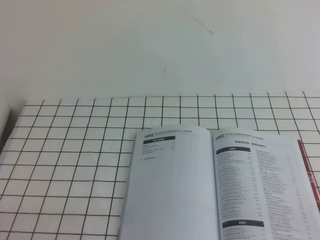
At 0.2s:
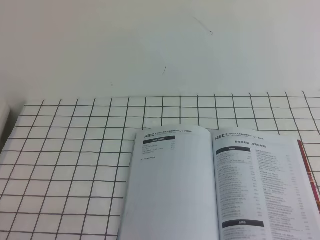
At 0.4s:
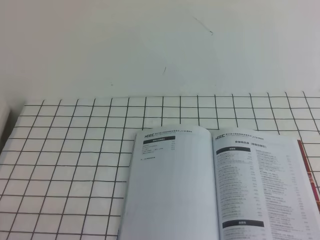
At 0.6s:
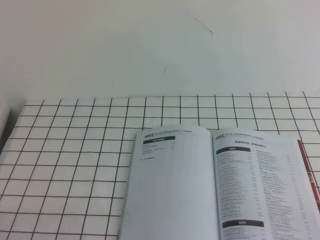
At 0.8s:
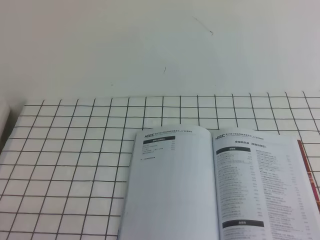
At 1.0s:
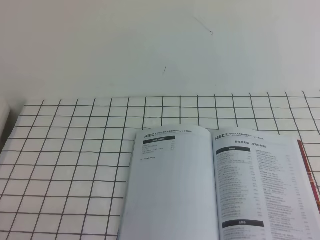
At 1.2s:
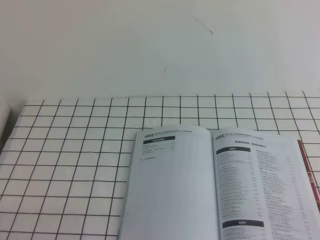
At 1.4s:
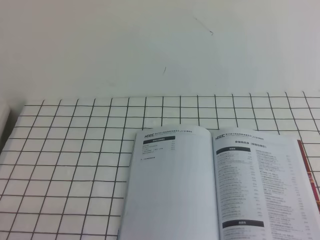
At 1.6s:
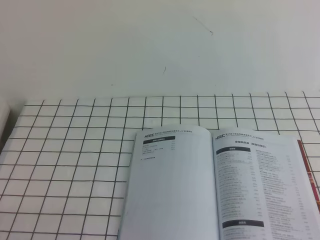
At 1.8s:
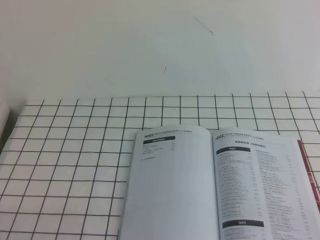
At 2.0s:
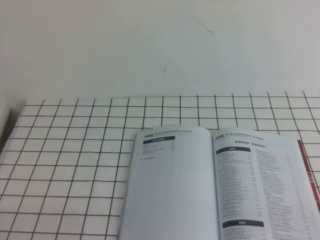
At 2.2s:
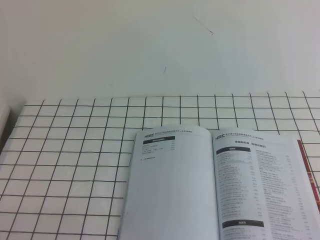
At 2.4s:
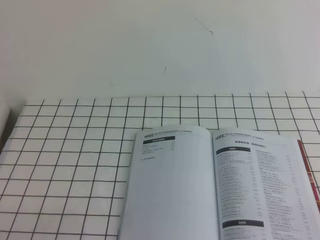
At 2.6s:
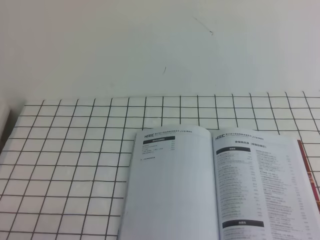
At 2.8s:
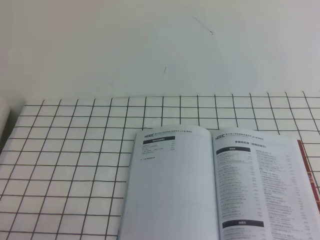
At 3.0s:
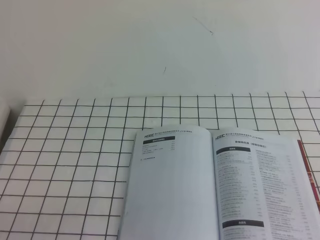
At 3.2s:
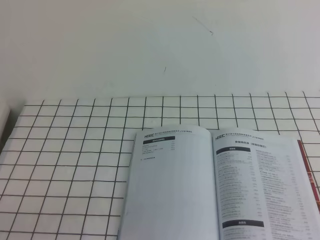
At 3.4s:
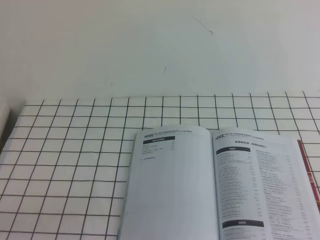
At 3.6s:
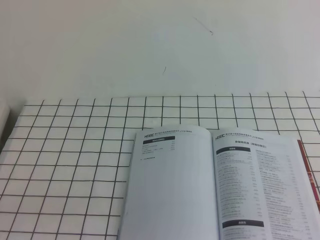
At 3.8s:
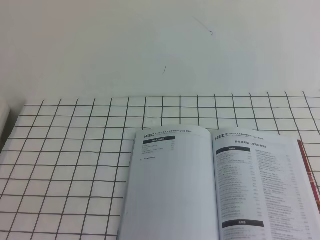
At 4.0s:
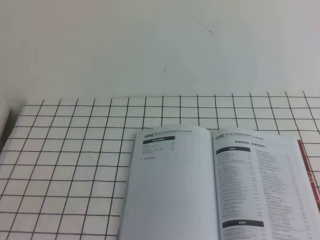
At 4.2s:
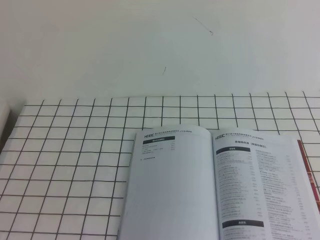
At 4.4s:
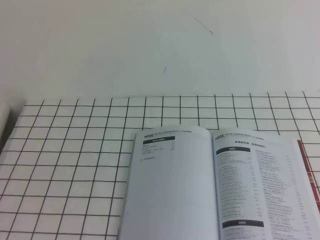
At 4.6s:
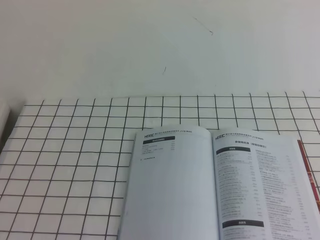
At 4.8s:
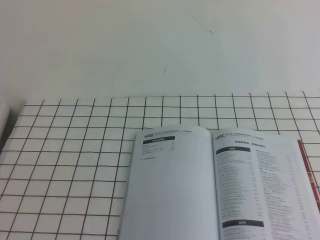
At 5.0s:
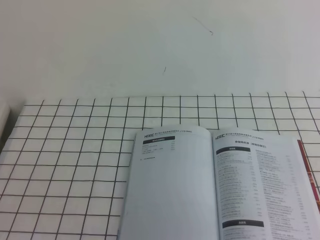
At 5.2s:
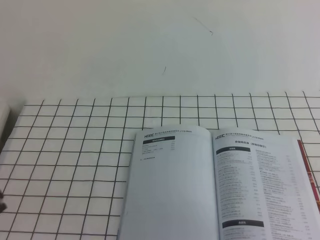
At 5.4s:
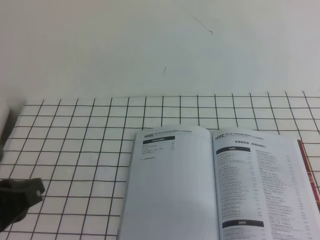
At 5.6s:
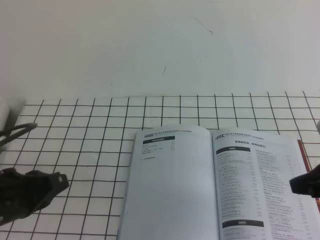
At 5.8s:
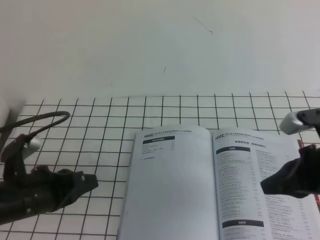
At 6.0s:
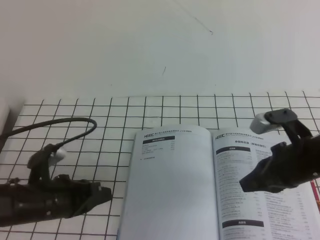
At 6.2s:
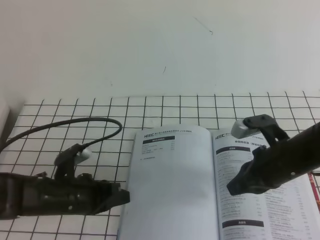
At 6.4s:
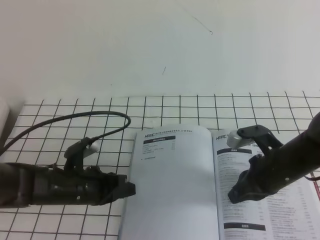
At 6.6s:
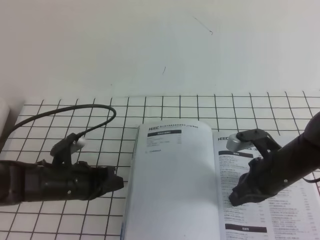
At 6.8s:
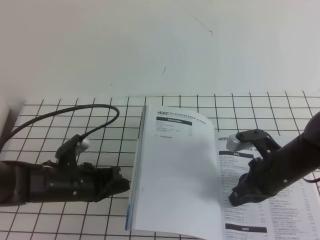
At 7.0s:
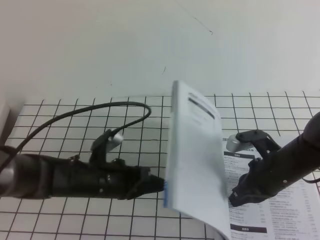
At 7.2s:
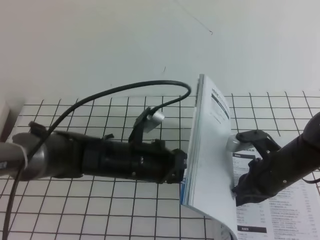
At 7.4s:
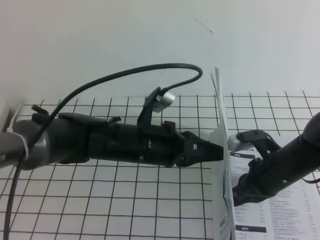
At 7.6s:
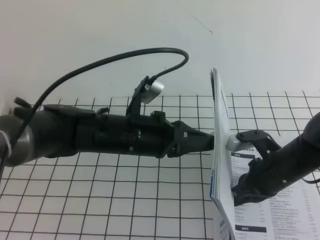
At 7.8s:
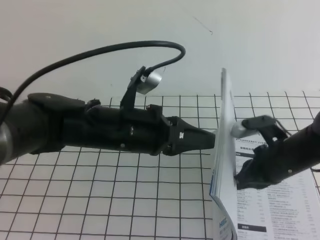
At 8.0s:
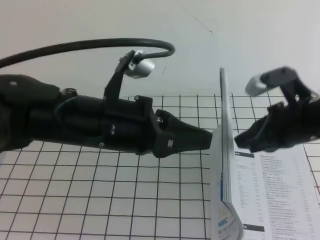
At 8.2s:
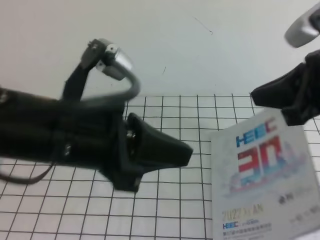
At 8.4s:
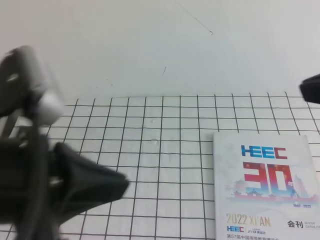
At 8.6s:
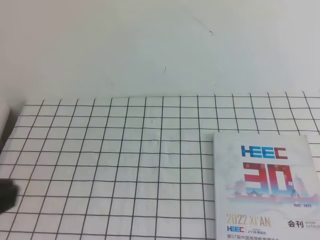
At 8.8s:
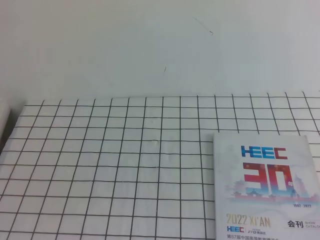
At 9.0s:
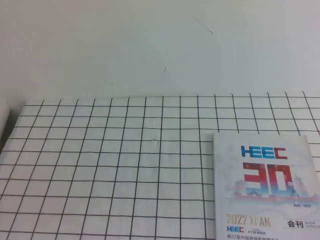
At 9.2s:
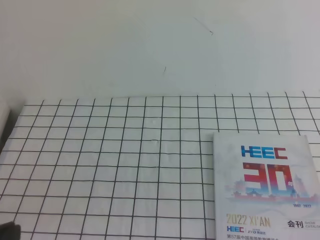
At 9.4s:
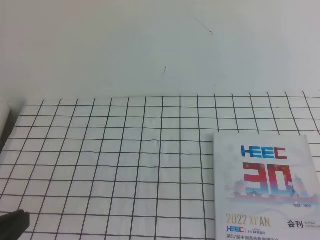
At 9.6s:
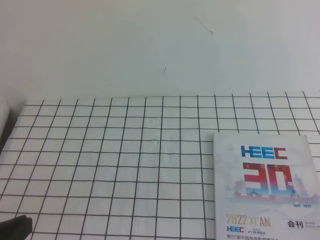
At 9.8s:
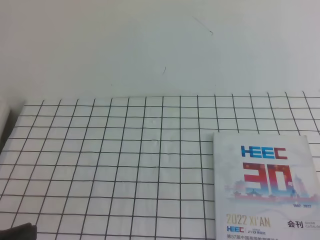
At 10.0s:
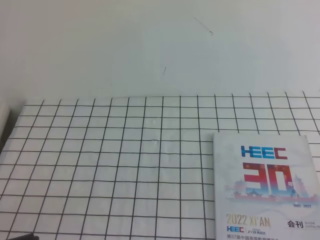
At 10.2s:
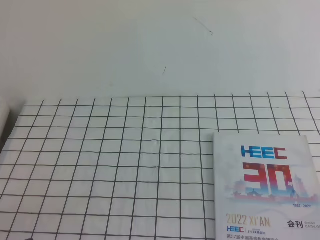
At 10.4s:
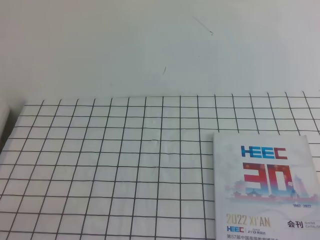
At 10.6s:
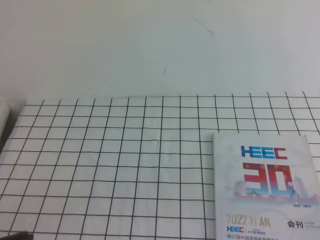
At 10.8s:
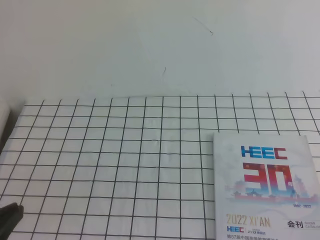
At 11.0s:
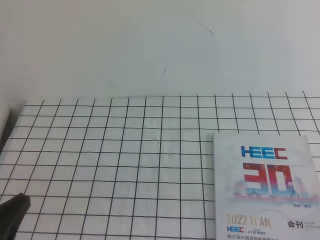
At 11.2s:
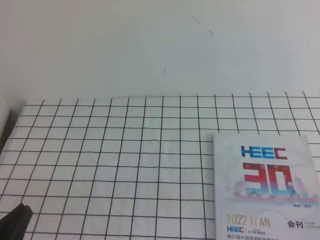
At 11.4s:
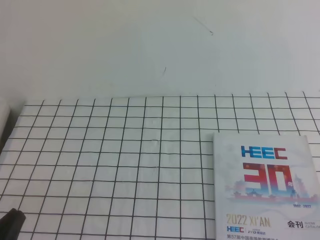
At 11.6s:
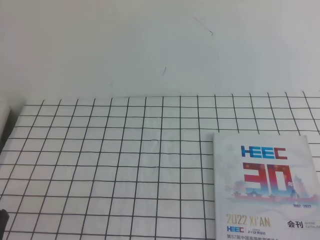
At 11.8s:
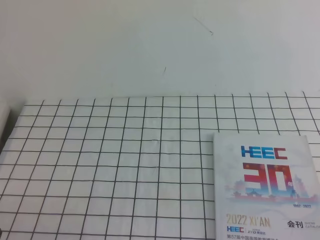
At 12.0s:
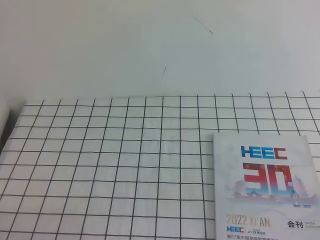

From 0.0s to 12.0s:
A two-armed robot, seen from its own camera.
Task of the whole recording: on the white tablecloth, hold the book with one hand and close it with the other.
From 0.0s to 1.6s: Neither gripper changes place.
From 4.4s to 6.0s: The right gripper heads forward, downward and to the left, covering approximately 30 cm. Meanwhile the left gripper heads forward and downward, covering approximately 30 cm.
From 6.0s to 7.6s: The left gripper shifts roughly 15 cm to the right and upward, while the right gripper goes about 5 cm downward.
From 7.6s to 9.0s: The right gripper shifts approximately 35 cm backward, upward and to the right; the left gripper shifts some 35 cm backward, to the left and upward.
